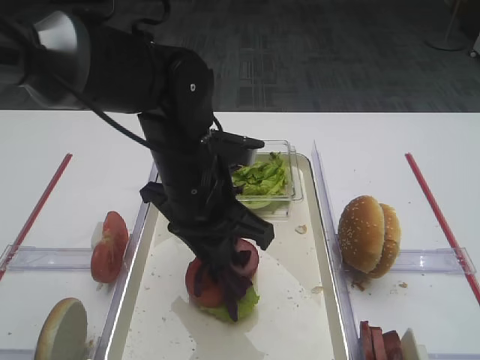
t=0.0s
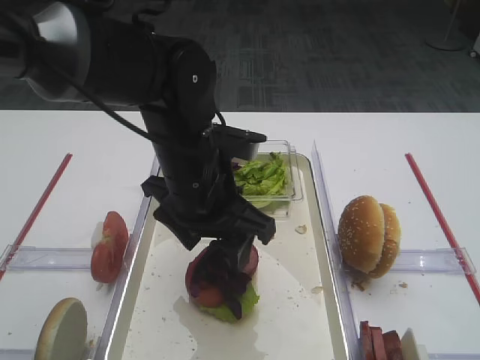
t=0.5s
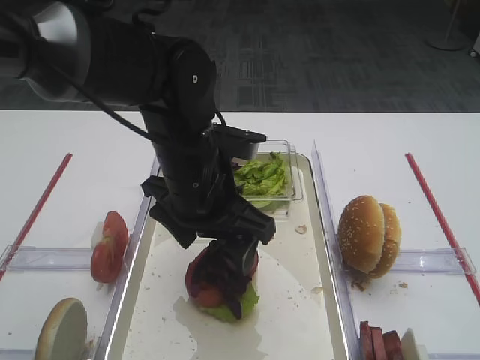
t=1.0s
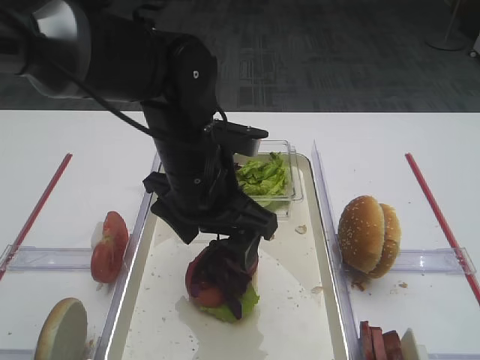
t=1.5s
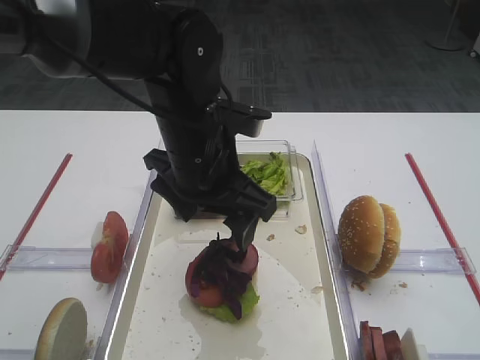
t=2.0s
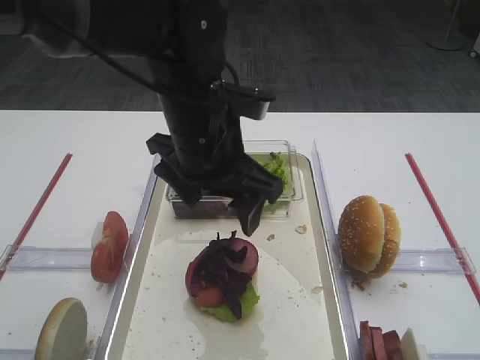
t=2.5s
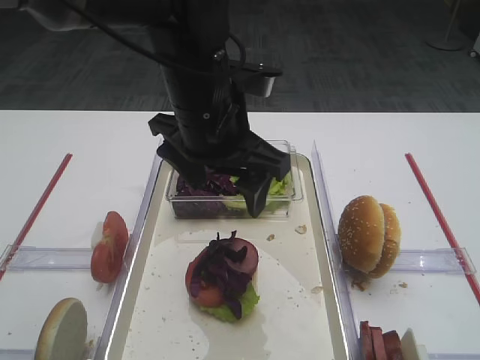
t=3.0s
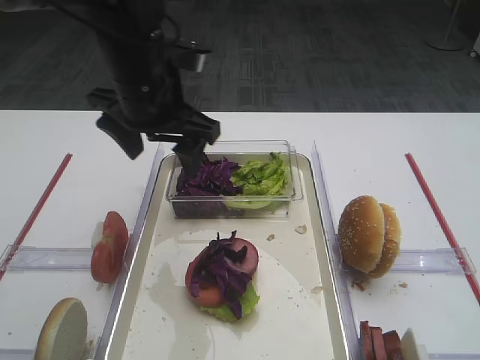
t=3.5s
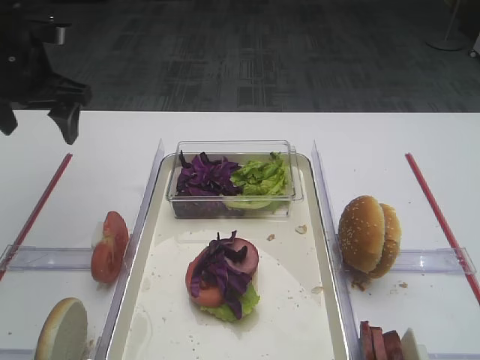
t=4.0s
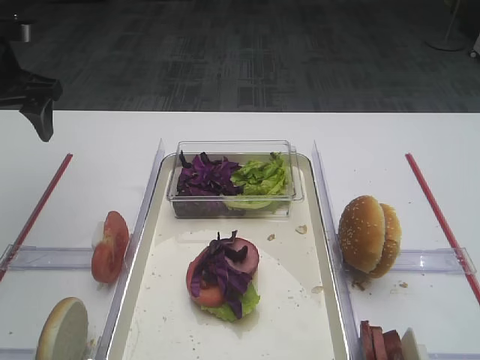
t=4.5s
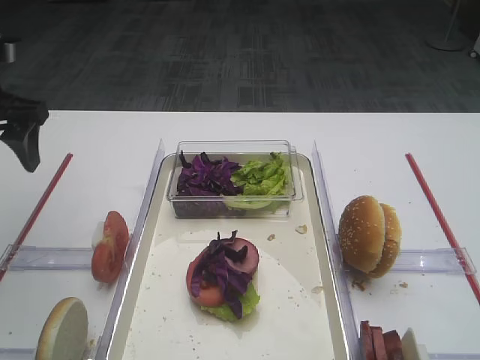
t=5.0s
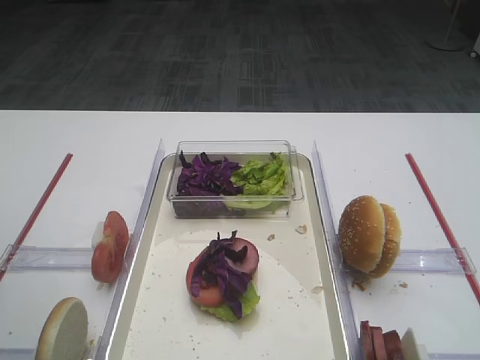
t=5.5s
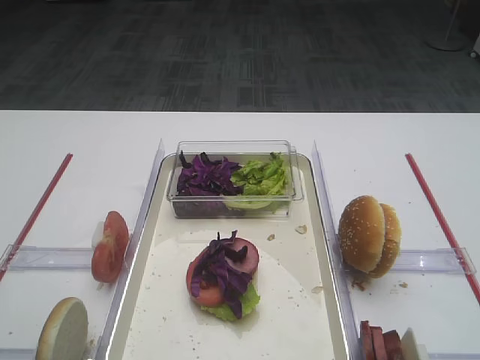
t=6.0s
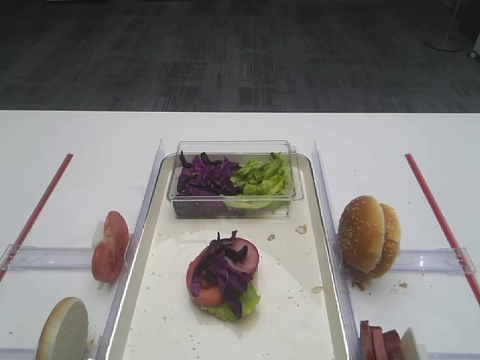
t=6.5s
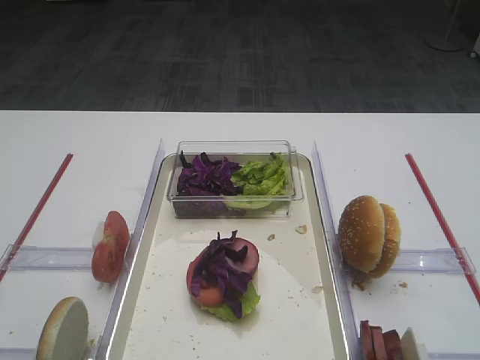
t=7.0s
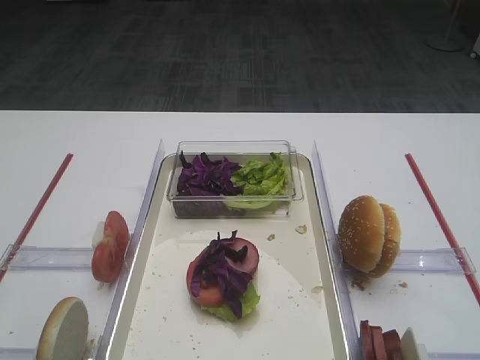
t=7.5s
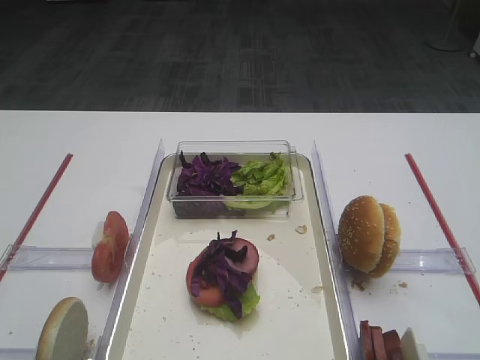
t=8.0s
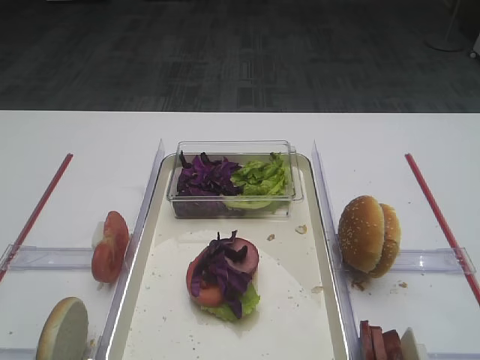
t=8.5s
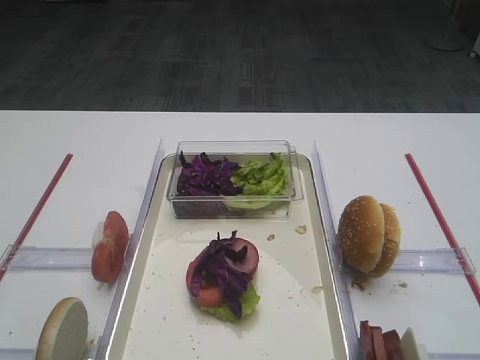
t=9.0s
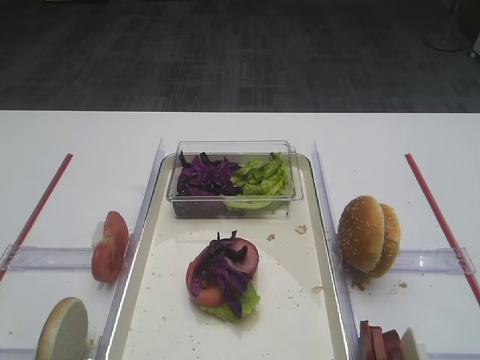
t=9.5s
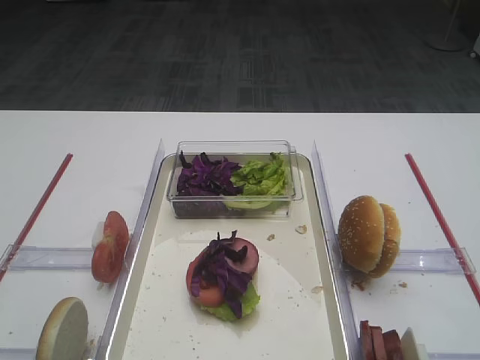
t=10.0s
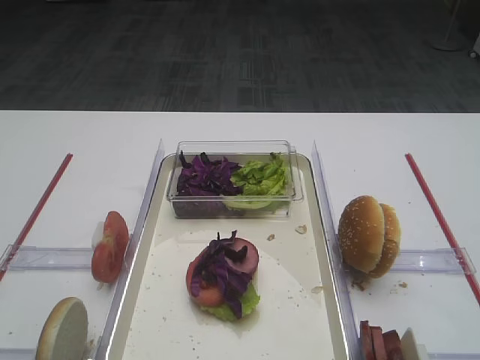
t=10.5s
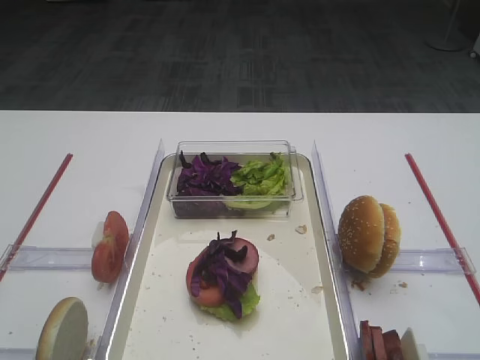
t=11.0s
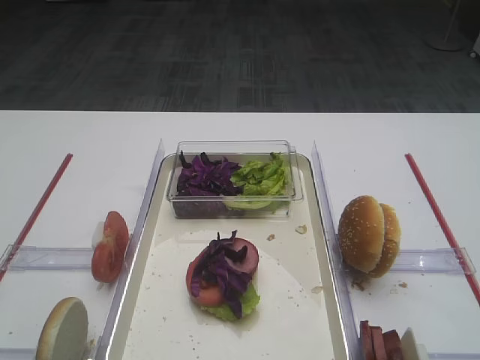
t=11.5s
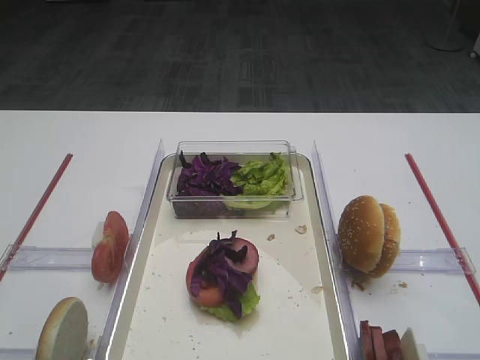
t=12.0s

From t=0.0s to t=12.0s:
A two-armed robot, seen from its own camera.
Step, from t=0.0s to t=2.0s: Place the purple cabbage on the cutlet with the left gripper.
From t=0.0s to t=2.0s: The left gripper opens its fingers.
From t=2.0s to t=4.0s: The left gripper heads to the left and forward, covering roughly 25 cm.
From t=4.0s to t=6.0s: The left gripper is displaced backward by roughly 30 cm.
From t=8.0s to t=10.0s: Neither gripper changes place.

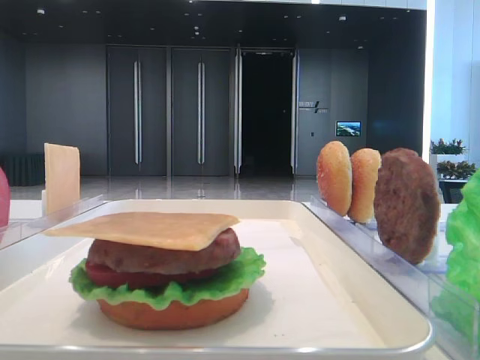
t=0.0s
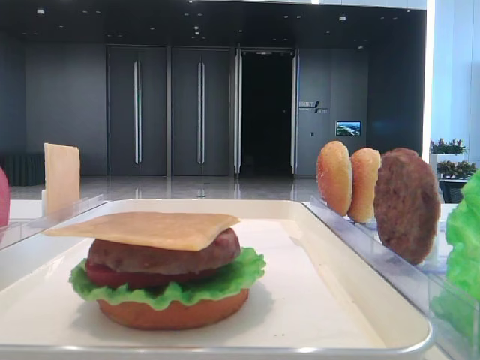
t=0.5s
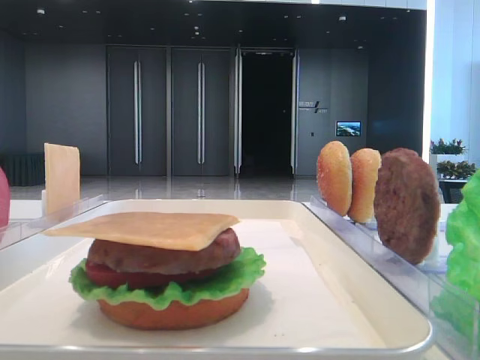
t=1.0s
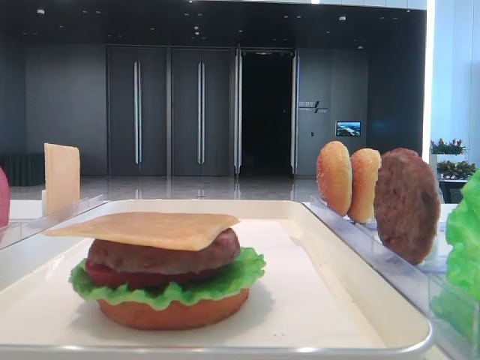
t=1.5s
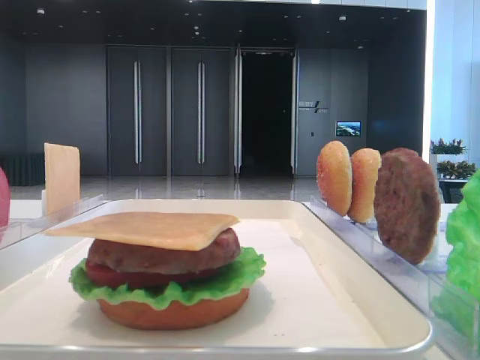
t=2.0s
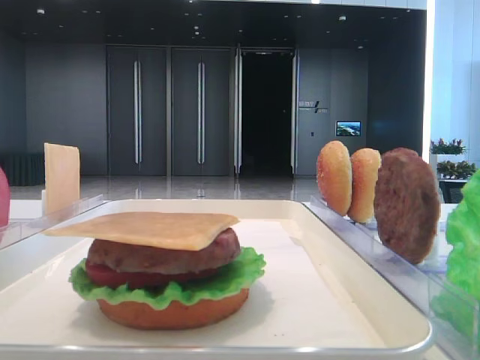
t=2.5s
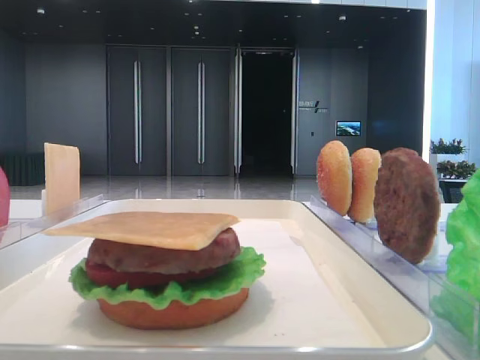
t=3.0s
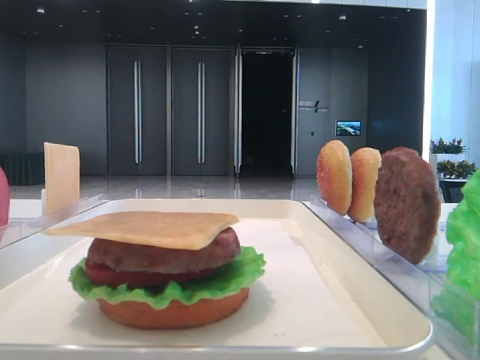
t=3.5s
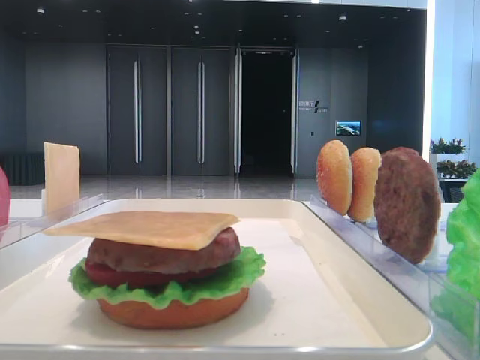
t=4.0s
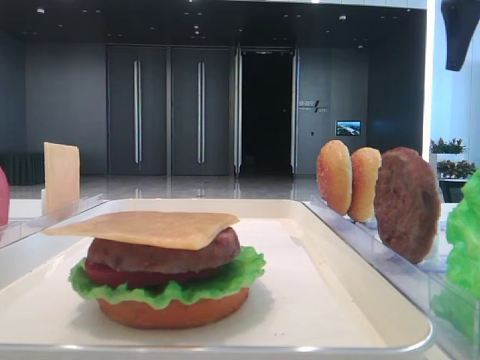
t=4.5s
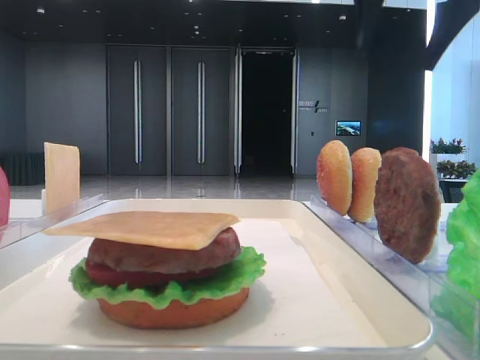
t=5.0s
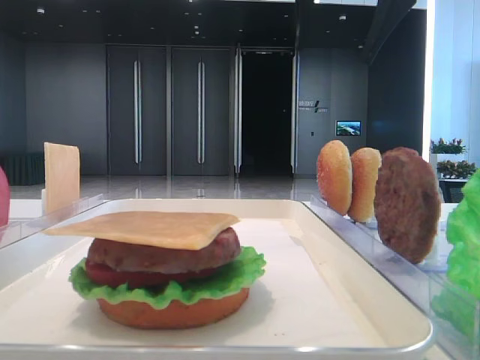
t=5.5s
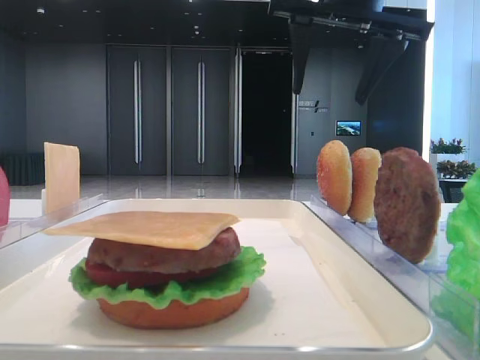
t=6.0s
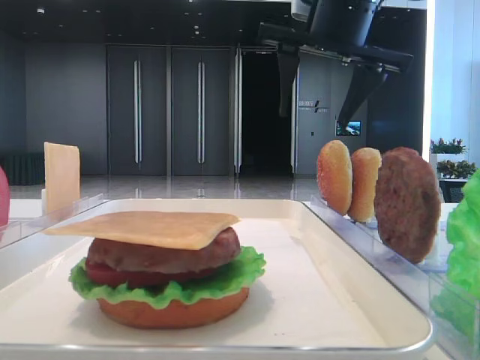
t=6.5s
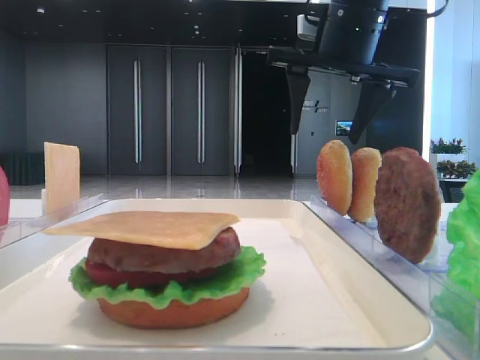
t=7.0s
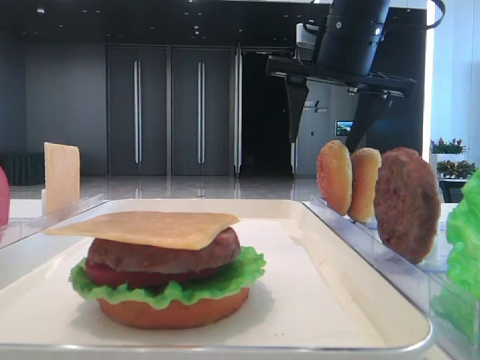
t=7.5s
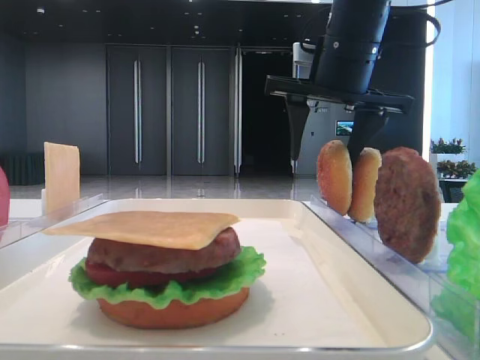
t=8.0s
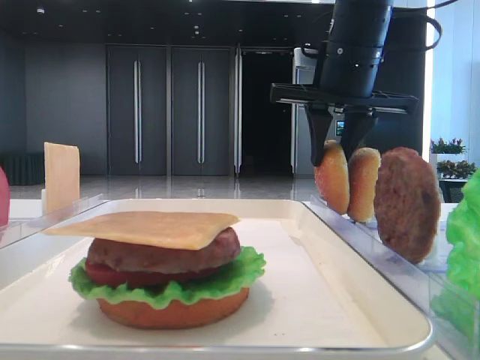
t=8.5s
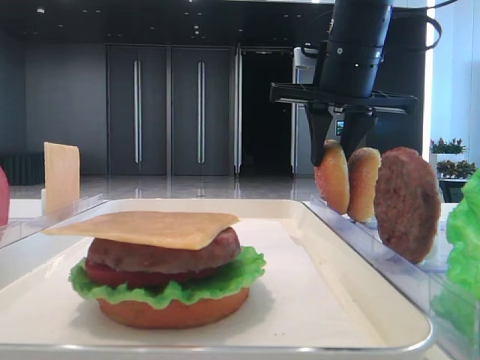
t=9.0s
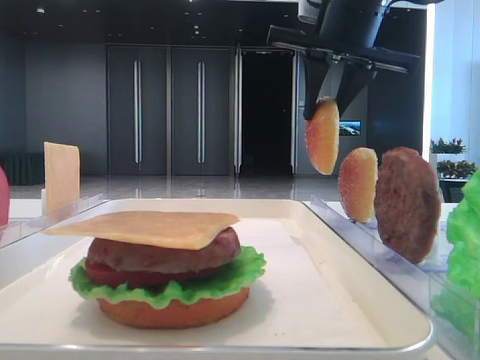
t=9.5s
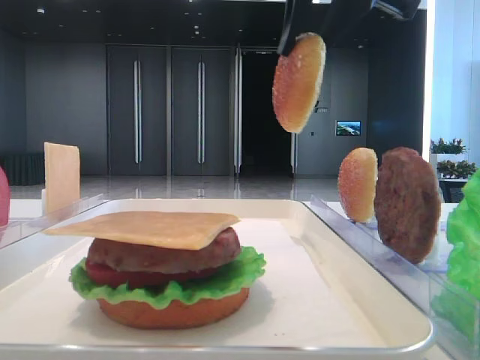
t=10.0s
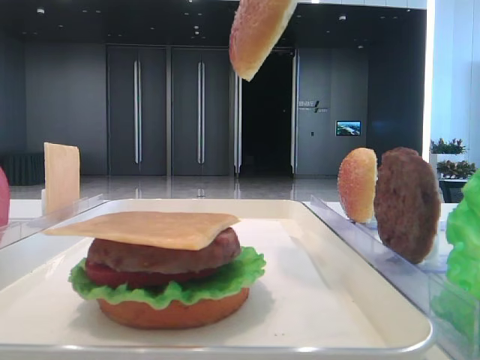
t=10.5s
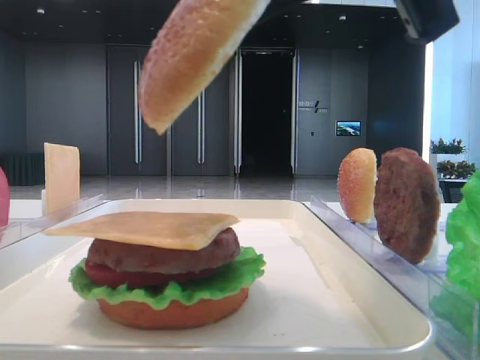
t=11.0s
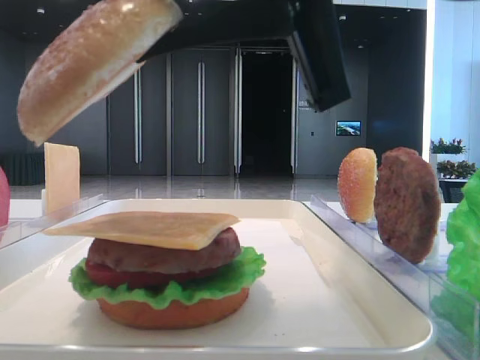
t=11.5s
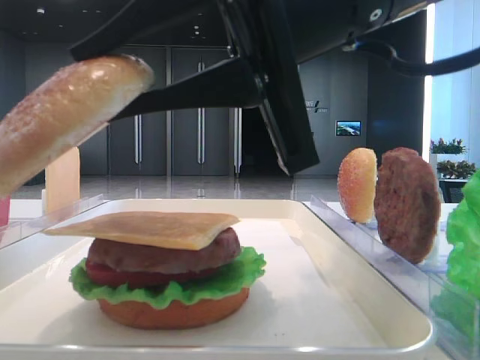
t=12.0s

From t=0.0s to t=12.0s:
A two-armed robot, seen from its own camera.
Step, from t=0.0s to t=8.5s: Pick up the top bread slice with the right hand.
From t=4.0s to t=6.0s: The right gripper heads to the left, covering about 20 cm.
From t=6.0s to t=8.0s: The right gripper is displaced downward by approximately 5 cm.
From t=8.0s to t=10.0s: The right gripper goes approximately 15 cm upward and backward, and closes up.
From t=10.0s to t=12.0s: The right gripper shifts approximately 15 cm downward and backward.

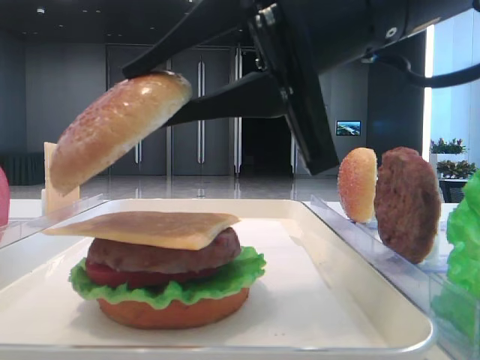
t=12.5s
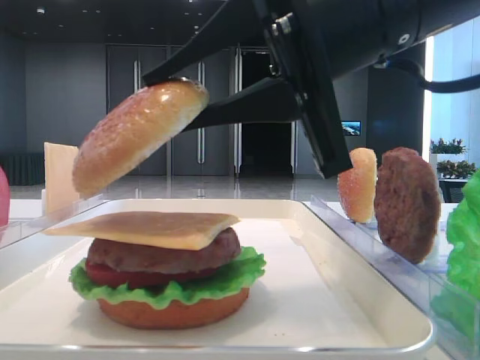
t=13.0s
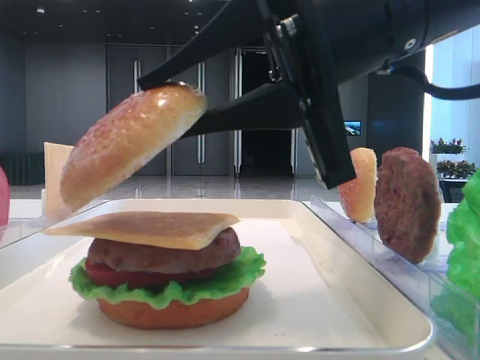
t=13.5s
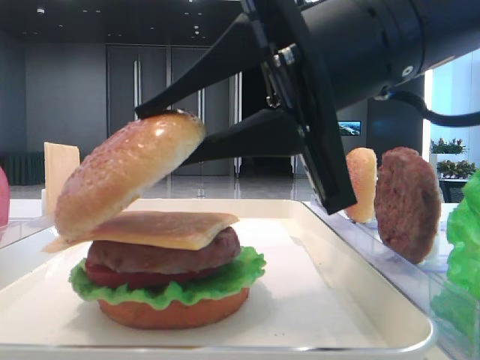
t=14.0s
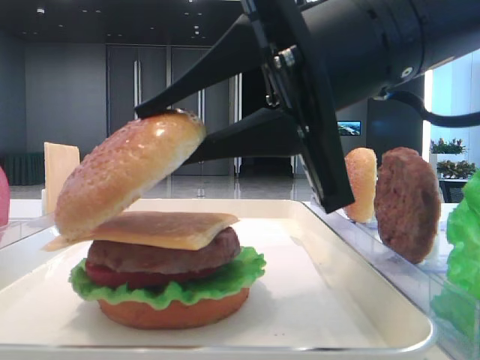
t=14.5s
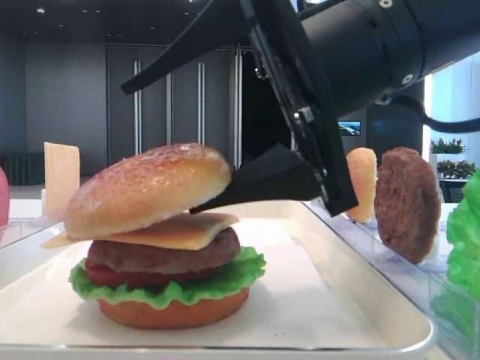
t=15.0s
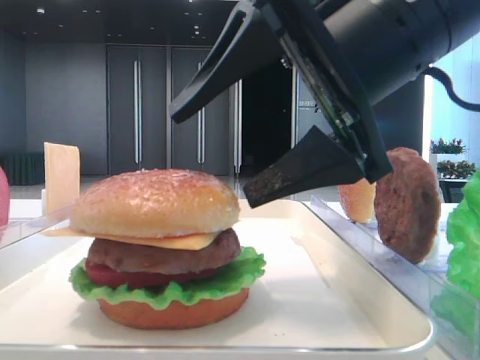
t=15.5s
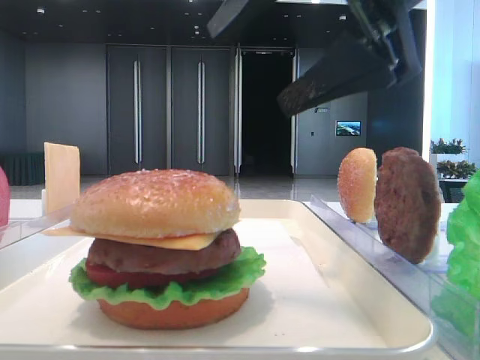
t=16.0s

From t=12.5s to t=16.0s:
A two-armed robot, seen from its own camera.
Step, from t=12.5s to t=15.0s: Place the top bread slice on the cheese with the right hand.
From t=12.5s to t=14.5s: The grippers stay close to where they were, moving slightly.
From t=14.5s to t=16.0s: The right gripper shifts about 5 cm upward, and opens its fingers.
